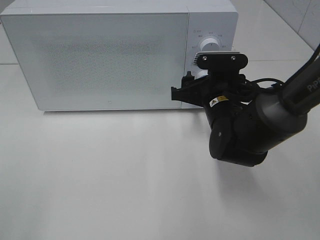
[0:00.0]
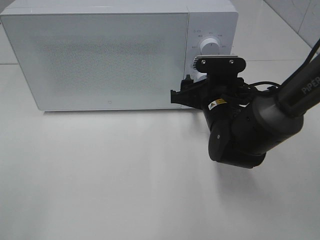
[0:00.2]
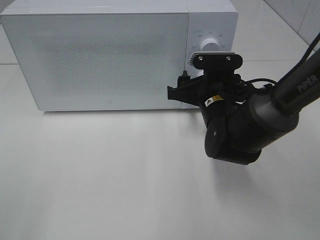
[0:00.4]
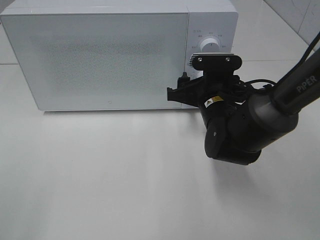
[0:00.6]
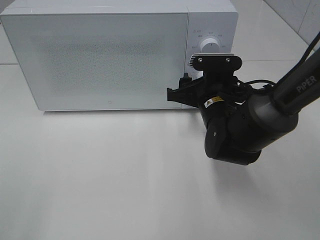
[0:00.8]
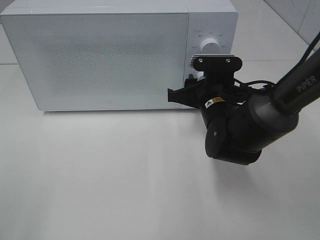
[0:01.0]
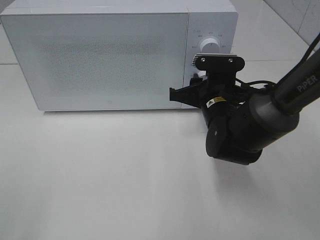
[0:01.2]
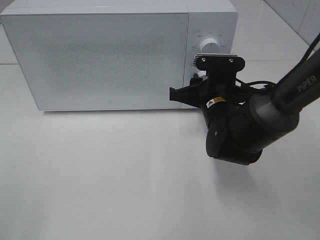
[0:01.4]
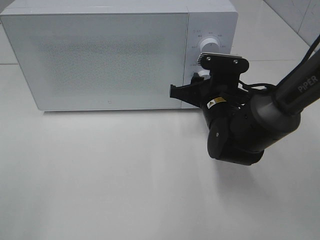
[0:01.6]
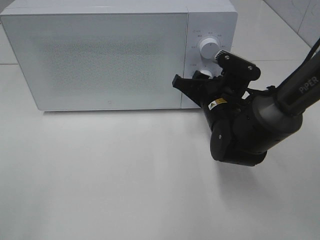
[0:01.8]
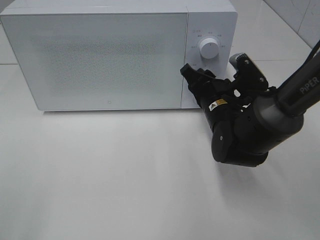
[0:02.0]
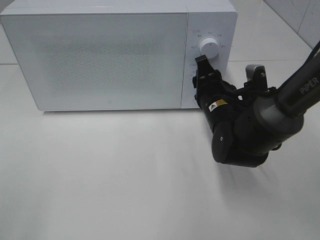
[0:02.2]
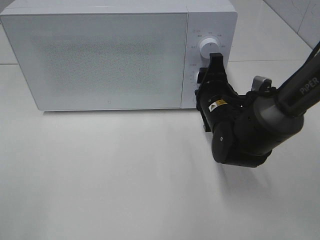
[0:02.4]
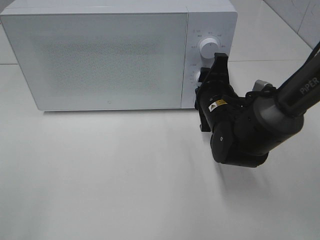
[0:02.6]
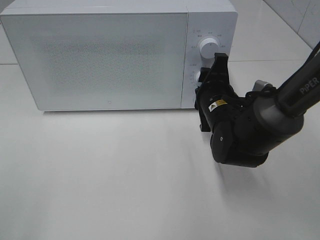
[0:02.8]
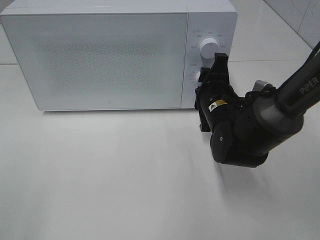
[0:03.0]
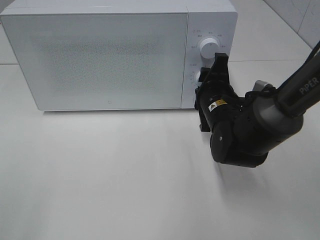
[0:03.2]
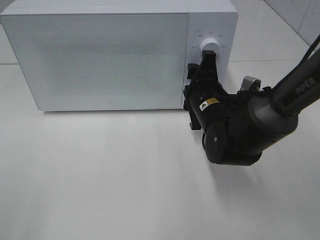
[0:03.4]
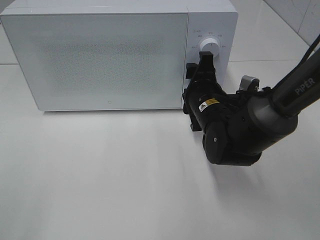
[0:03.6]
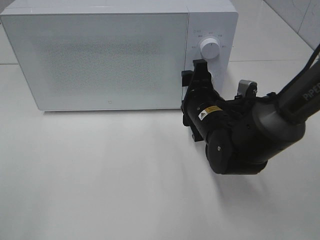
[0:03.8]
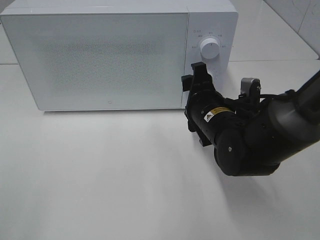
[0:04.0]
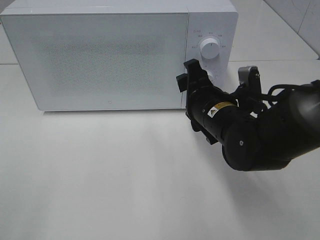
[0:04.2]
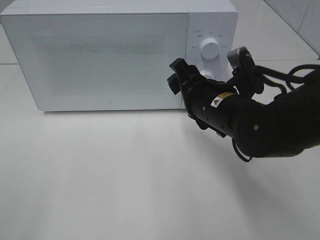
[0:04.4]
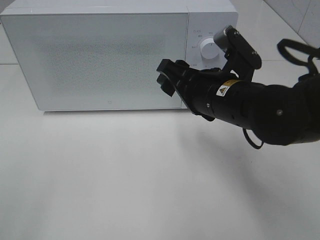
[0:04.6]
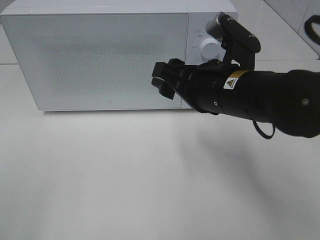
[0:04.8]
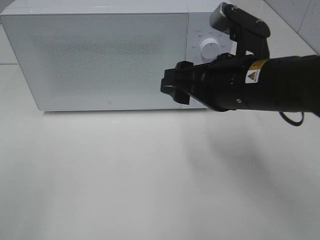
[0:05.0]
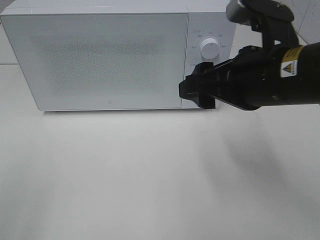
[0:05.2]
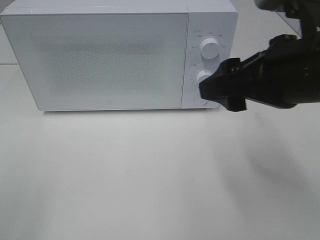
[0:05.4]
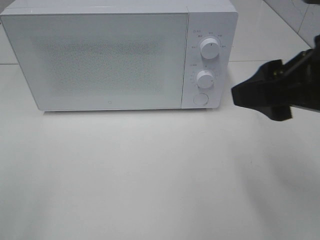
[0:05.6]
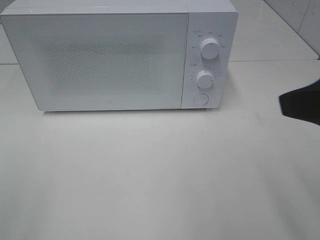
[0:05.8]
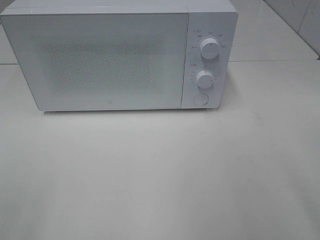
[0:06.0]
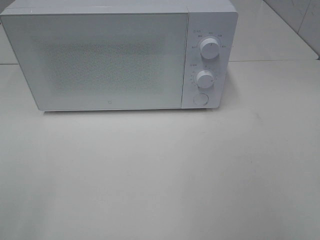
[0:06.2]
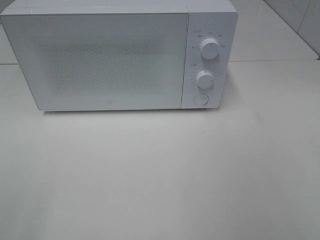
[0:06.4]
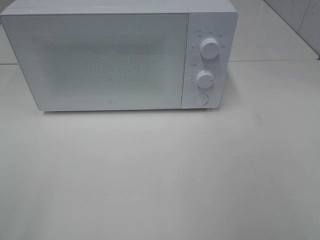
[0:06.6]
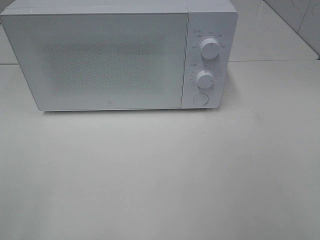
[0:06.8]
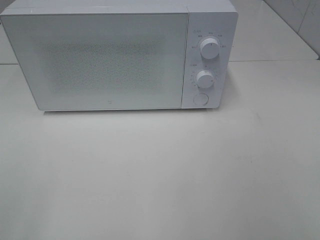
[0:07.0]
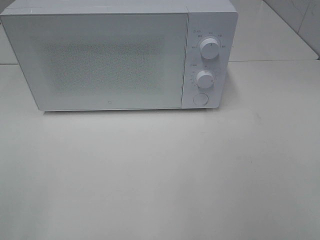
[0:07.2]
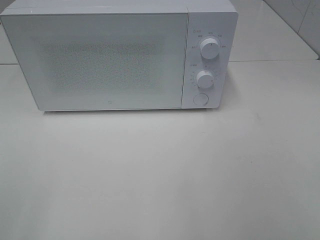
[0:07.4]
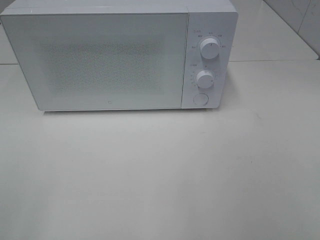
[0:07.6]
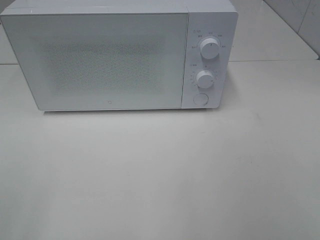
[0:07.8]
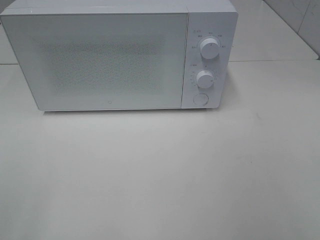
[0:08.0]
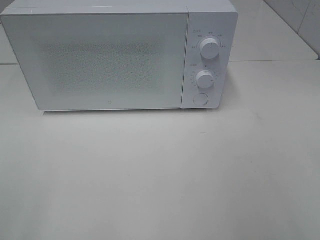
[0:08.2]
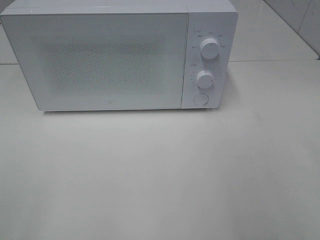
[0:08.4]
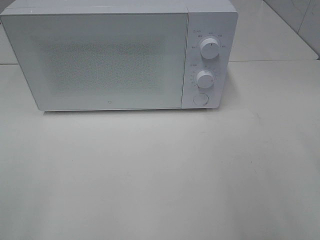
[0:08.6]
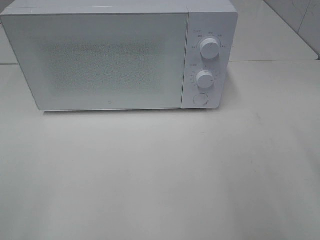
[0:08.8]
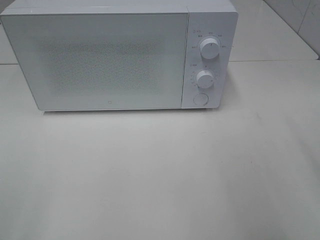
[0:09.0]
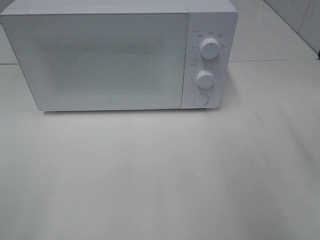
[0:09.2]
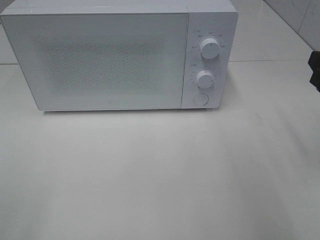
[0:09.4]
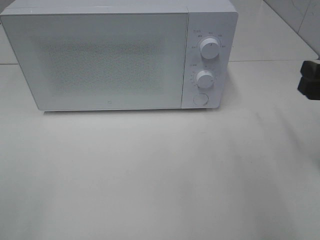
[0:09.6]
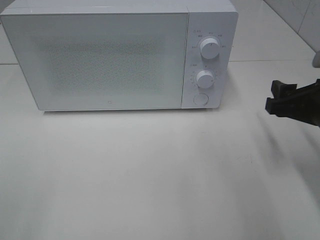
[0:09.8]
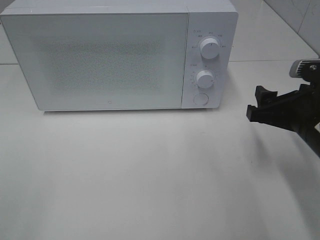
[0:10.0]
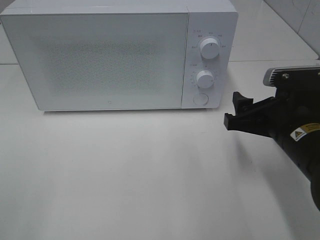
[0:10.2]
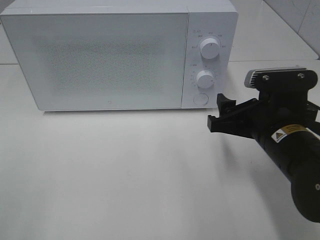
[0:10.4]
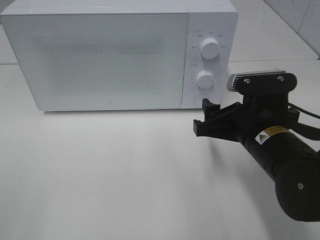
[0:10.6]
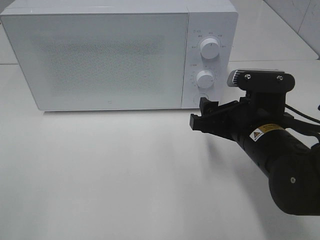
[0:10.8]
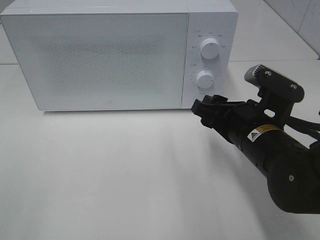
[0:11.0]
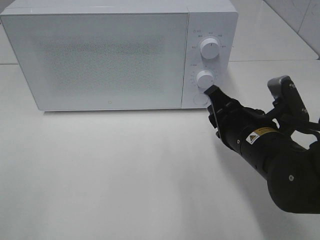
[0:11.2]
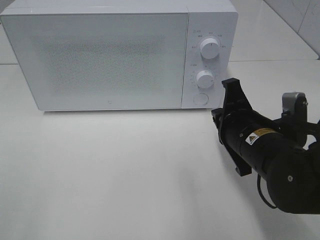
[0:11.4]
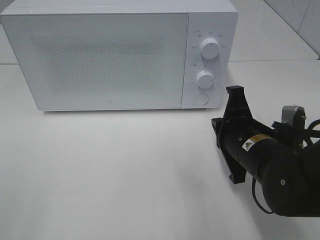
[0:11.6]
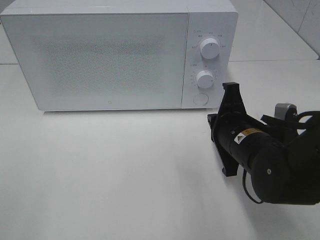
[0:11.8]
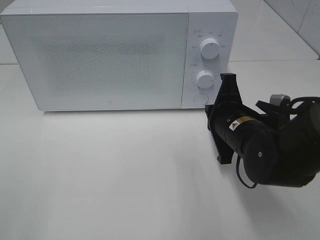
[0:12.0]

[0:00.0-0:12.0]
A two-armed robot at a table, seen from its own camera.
Task of the whole recording: Heat the burger.
Step, 0:00.0 to 0:03.4: Right hand: twist timer button.
0:00.0 to 0:01.6: The right gripper closes its fingers.
0:03.0 to 0:04.4: The right gripper is displaced backward and upward by roughly 5 cm.
0:04.4 to 0:06.0: The right gripper goes some 30 cm backward, upward and to the right.
0:09.0 to 0:10.4: The right gripper goes approximately 20 cm to the left, downward and forward.
0:10.4 to 0:12.0: The right gripper ends up roughly 5 cm from where it was, and closes up.

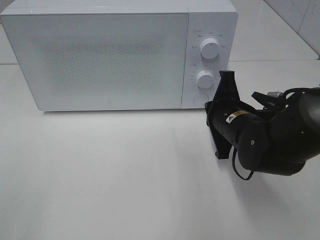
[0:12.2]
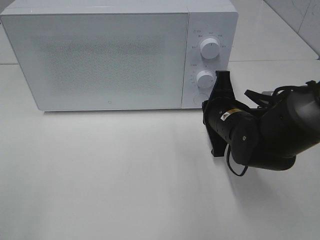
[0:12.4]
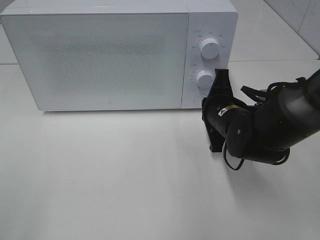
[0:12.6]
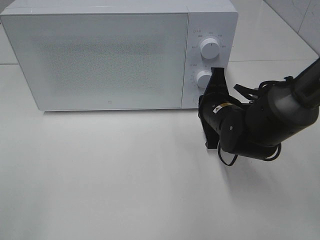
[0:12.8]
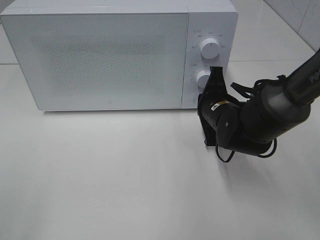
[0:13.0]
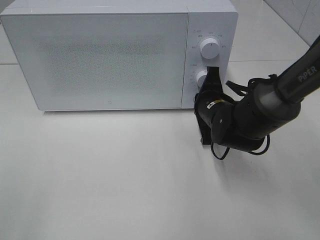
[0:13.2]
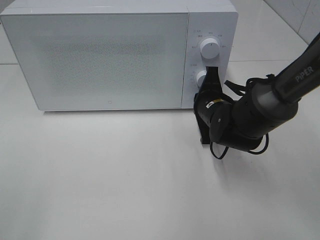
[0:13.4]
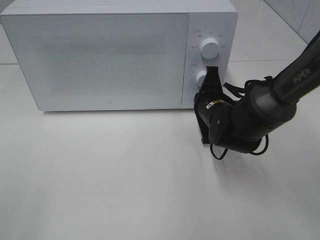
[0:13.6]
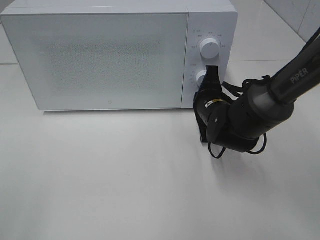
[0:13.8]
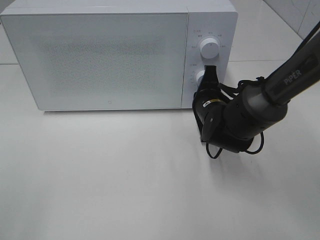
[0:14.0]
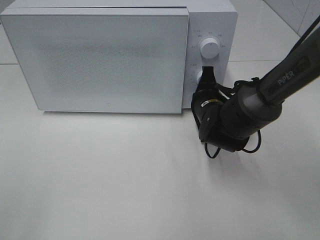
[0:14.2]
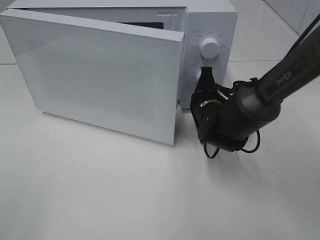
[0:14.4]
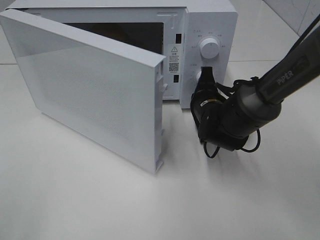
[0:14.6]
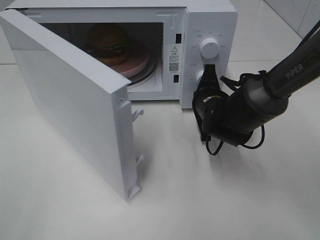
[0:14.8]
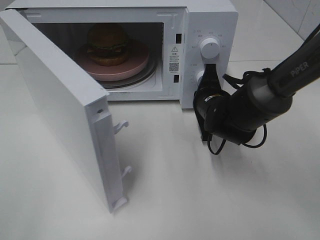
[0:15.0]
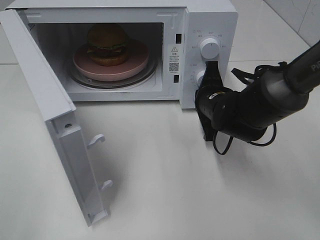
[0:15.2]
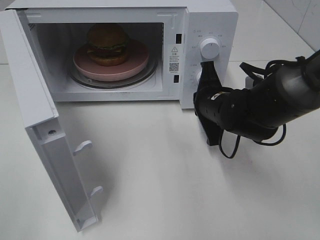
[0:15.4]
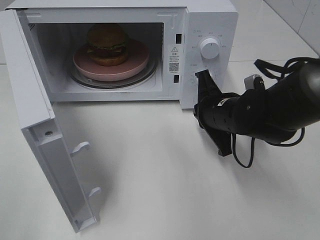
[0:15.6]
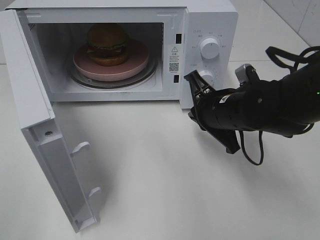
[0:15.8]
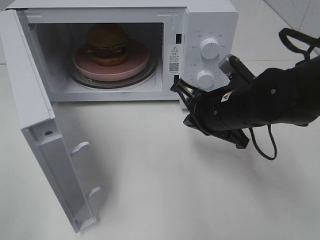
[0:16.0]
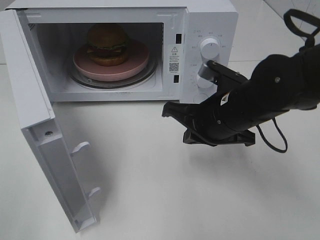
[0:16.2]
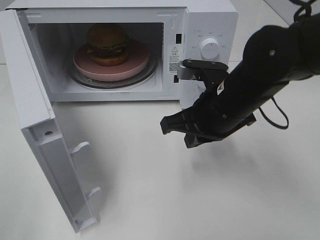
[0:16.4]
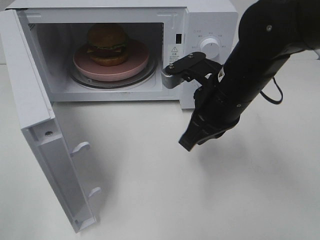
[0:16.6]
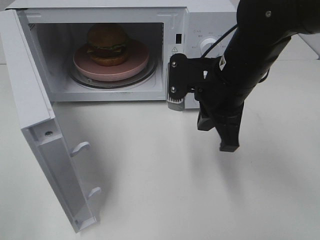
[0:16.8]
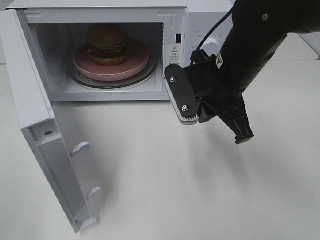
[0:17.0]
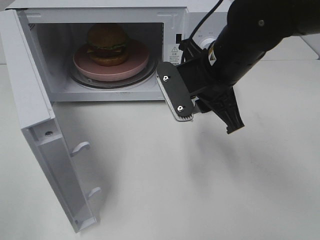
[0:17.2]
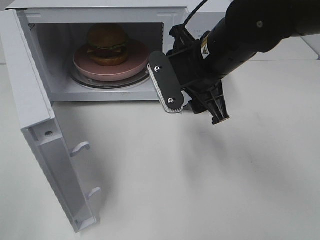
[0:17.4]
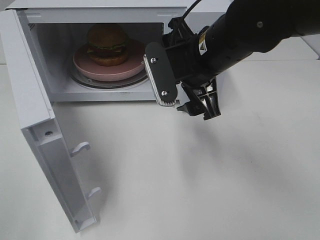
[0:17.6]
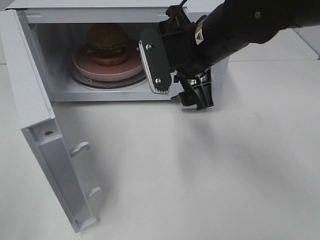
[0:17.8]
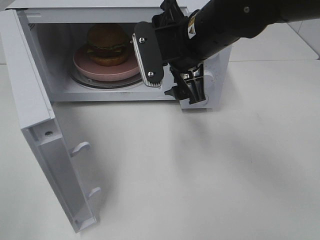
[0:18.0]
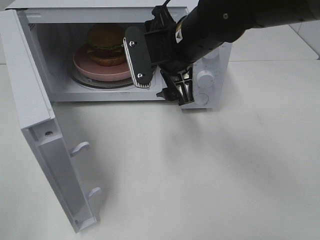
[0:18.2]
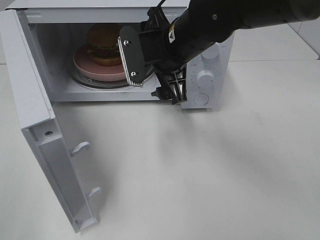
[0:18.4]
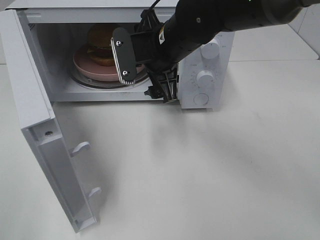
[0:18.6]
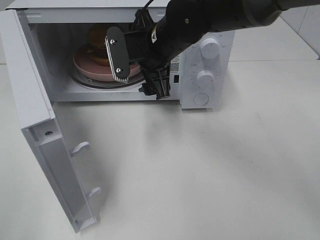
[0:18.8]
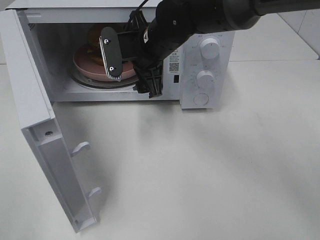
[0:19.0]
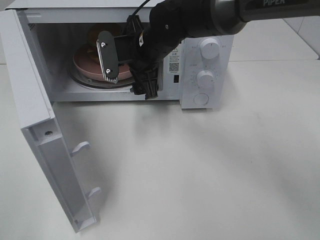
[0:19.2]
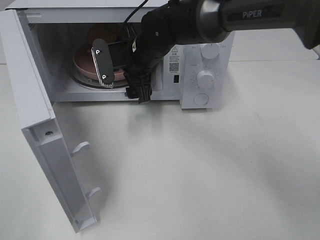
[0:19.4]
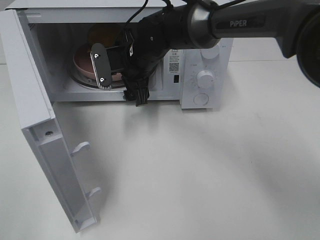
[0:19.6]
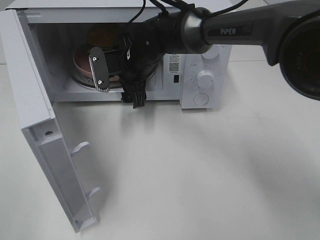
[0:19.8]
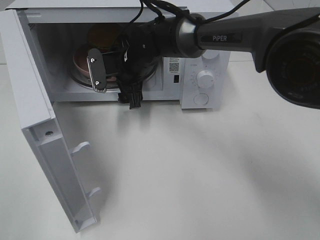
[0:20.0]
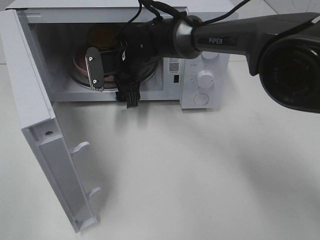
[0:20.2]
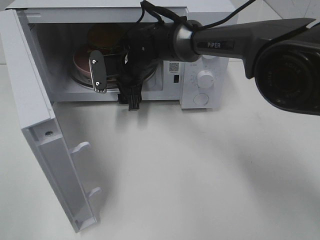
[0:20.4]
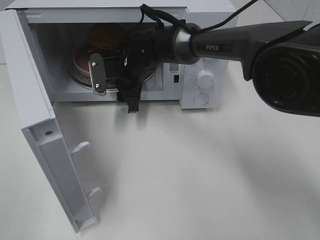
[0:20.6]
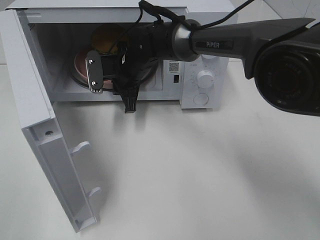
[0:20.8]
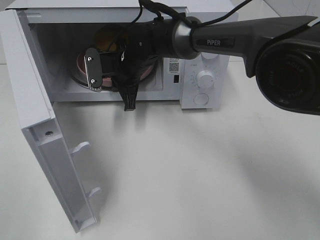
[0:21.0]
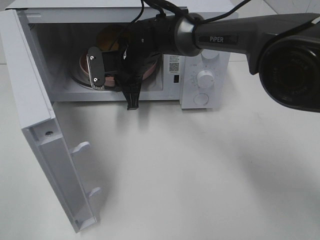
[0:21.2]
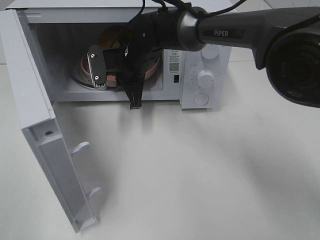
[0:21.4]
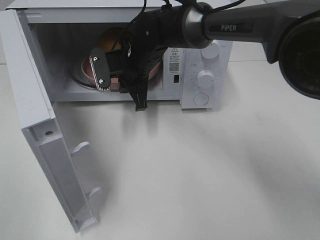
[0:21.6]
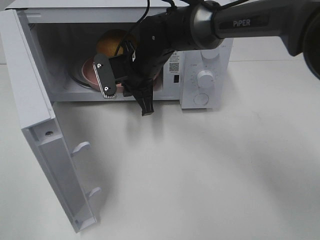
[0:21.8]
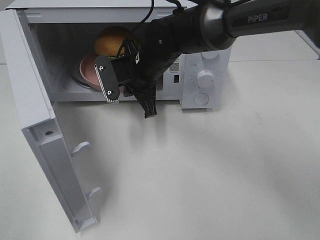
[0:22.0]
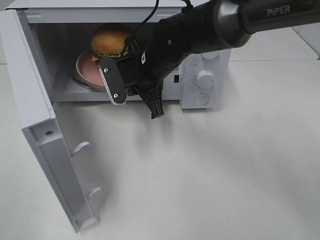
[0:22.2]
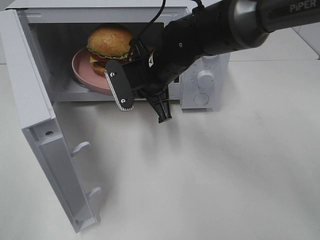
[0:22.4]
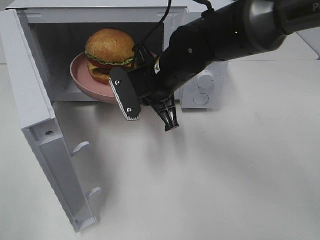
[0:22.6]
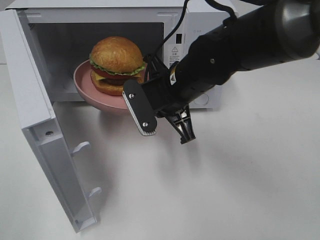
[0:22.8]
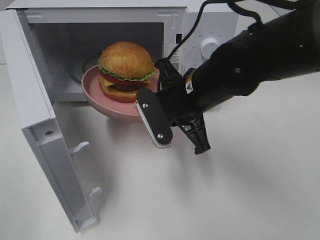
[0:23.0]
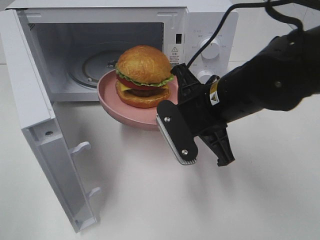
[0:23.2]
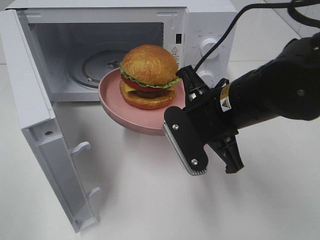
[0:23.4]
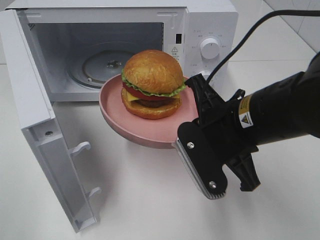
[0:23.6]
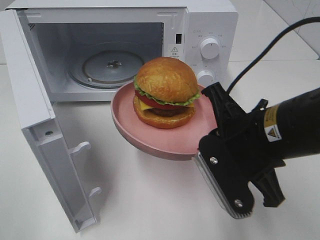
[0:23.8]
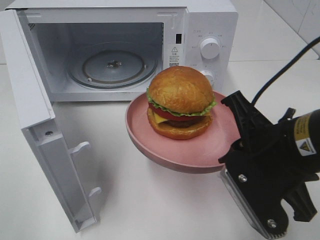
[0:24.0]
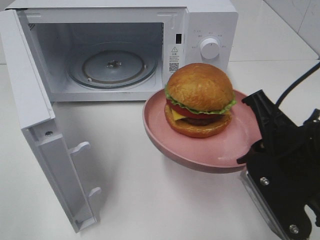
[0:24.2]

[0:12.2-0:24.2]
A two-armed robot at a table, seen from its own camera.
Task of the whole recording: Heat the burger.
Step, 0:12.2 to 0:15.4: Right hand: press the switch.
Step, 0:15.6 to 0:21.0: Right hand: grab the plate with the hamburger.
0:12.2 to 0:13.8: The right gripper goes approximately 5 cm forward.
0:15.2 to 0:16.6: The right gripper travels upward and backward by about 10 cm.
0:16.6 to 0:18.2: The right gripper goes about 10 cm to the left and forward, and opens up.
0:18.2 to 0:19.8: The right gripper is displaced forward, downward and to the left by approximately 15 cm.
0:19.8 to 0:21.2: The right gripper closes up.
0:21.2 to 0:22.6: The right gripper goes some 10 cm backward and to the right.
0:22.6 to 0:24.2: The right gripper travels backward and to the right by about 25 cm.
